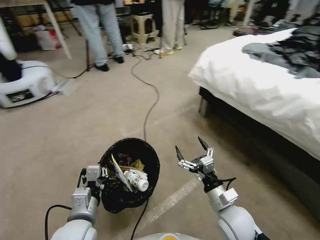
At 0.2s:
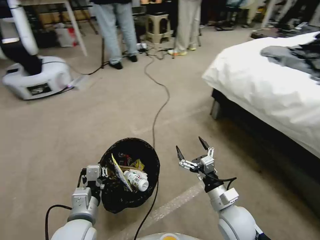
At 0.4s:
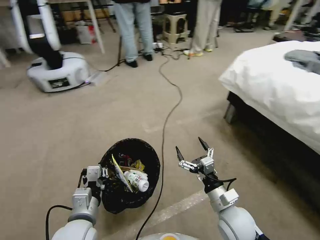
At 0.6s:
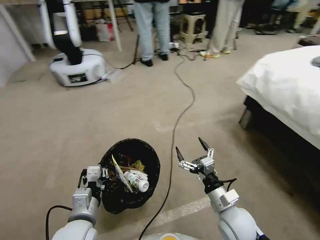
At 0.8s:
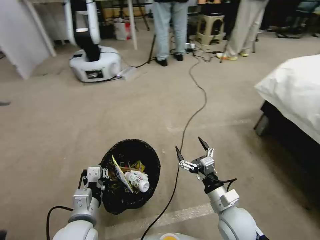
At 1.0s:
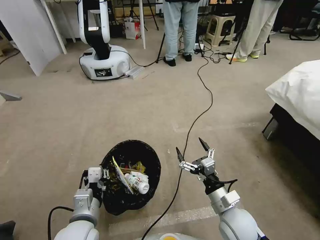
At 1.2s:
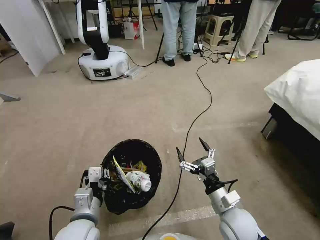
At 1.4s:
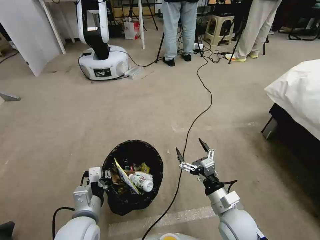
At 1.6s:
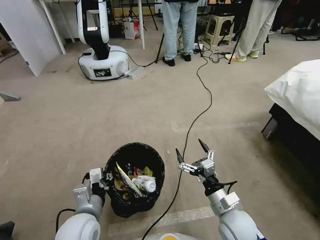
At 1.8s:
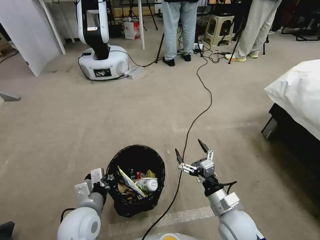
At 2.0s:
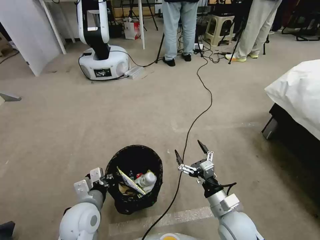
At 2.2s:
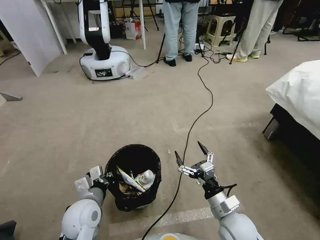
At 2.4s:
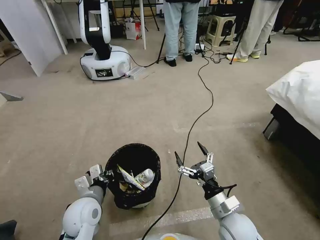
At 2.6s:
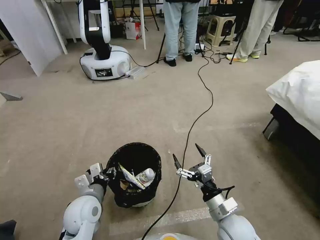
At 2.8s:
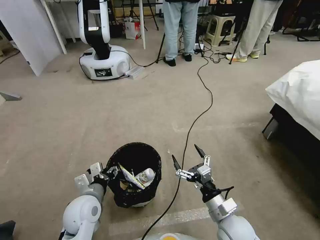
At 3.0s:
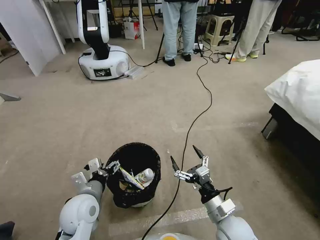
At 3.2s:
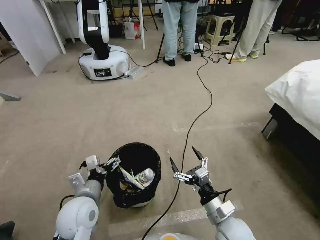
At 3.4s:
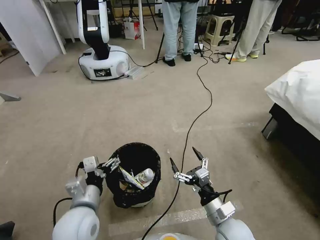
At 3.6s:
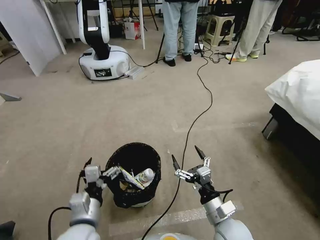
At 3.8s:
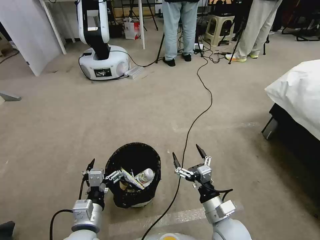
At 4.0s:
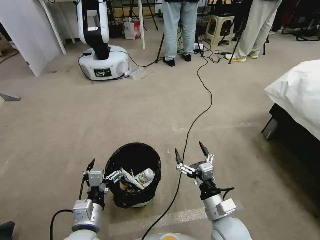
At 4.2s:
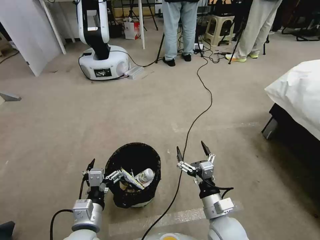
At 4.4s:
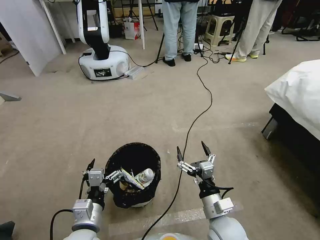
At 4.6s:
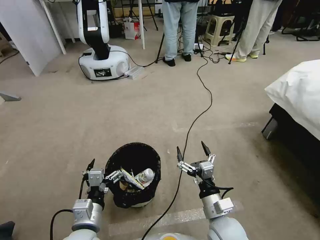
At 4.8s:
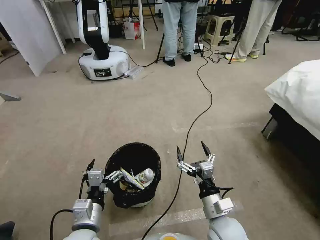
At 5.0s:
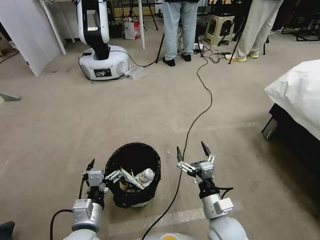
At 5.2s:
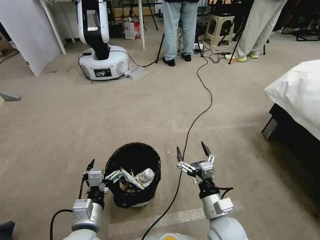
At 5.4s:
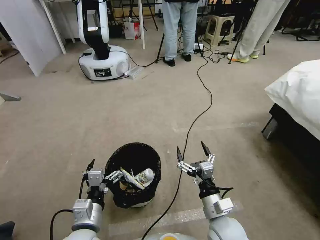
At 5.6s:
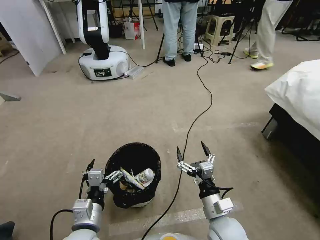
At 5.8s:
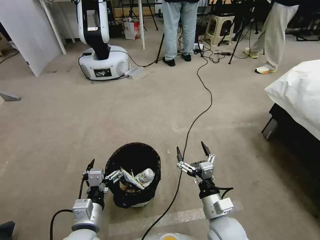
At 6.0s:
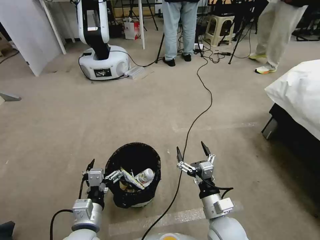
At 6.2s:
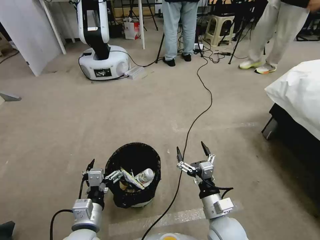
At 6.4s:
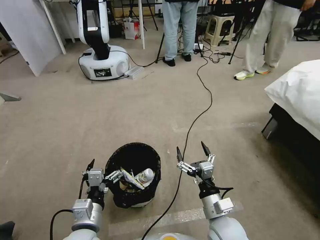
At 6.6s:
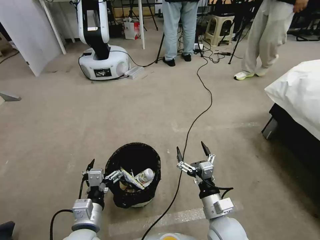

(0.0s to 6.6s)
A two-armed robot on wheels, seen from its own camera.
Task of the whole recording: Pick up the trash bin, then pick up the garbage from the floor and place it into the trash bin.
1.6s - 3.2s: The left gripper opens.
3.2s - 5.0s: The left gripper travels backward by about 5 cm.
5.0s - 6.6s: Both grippers stay about where they are.

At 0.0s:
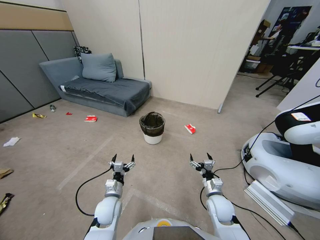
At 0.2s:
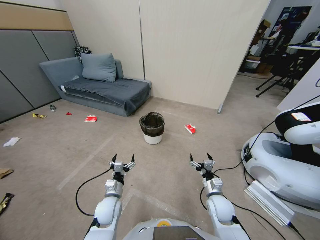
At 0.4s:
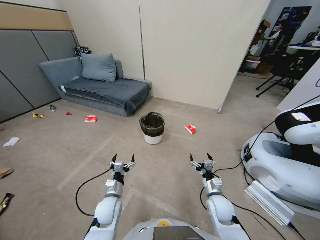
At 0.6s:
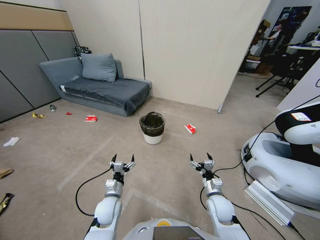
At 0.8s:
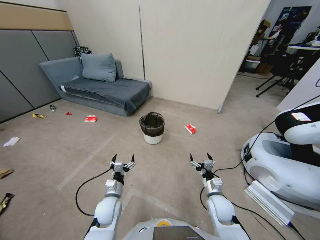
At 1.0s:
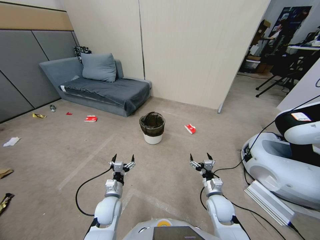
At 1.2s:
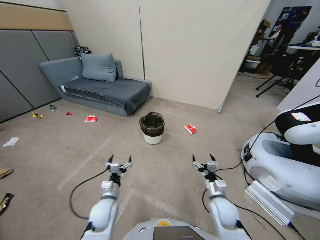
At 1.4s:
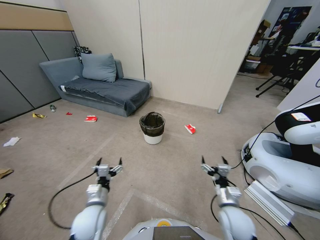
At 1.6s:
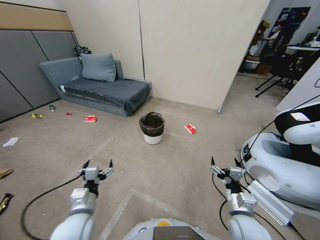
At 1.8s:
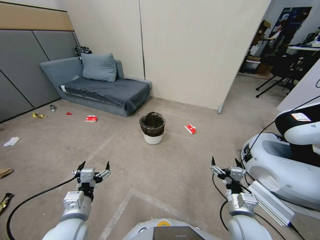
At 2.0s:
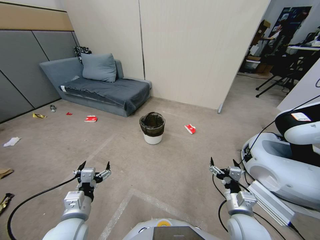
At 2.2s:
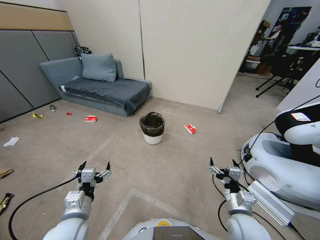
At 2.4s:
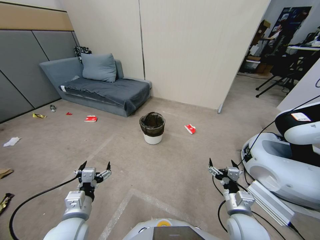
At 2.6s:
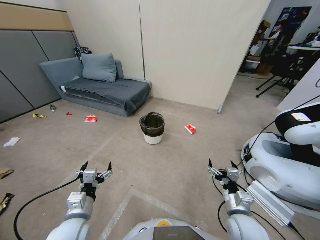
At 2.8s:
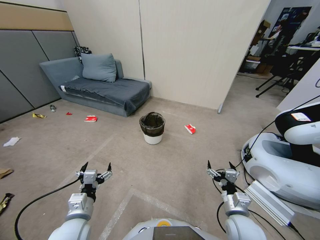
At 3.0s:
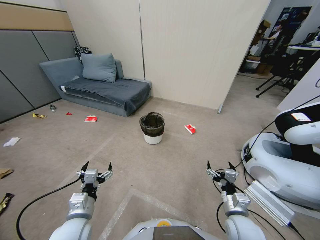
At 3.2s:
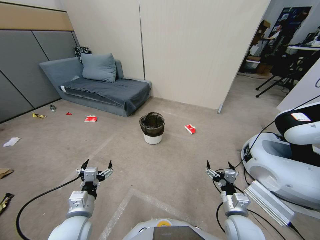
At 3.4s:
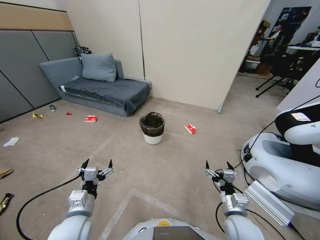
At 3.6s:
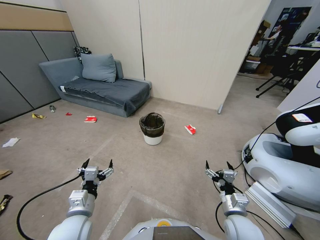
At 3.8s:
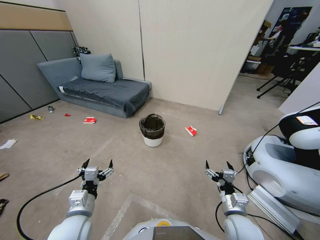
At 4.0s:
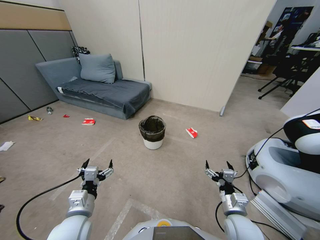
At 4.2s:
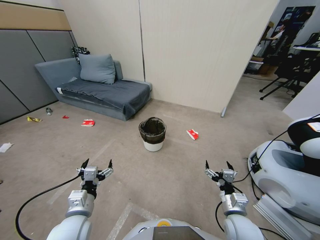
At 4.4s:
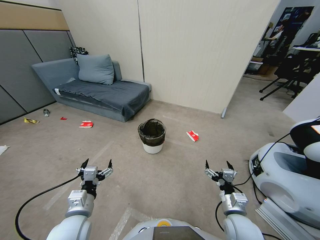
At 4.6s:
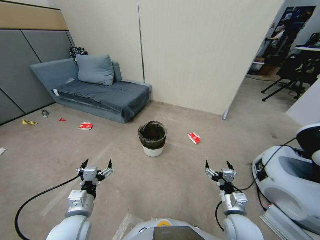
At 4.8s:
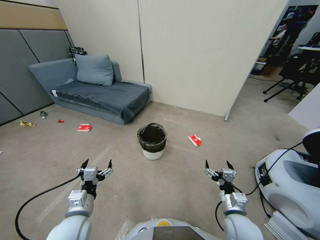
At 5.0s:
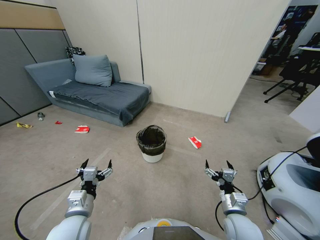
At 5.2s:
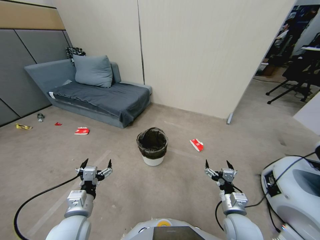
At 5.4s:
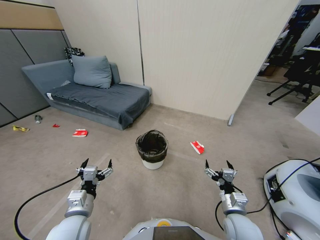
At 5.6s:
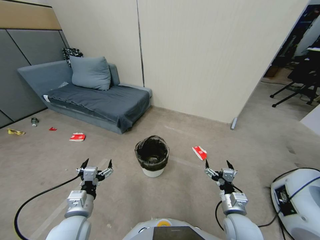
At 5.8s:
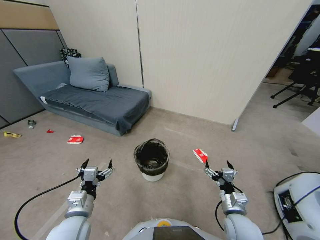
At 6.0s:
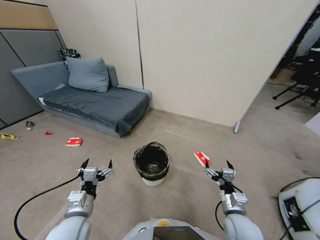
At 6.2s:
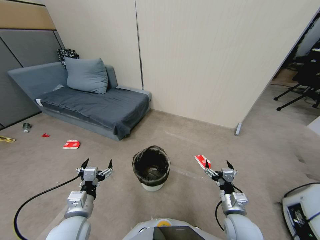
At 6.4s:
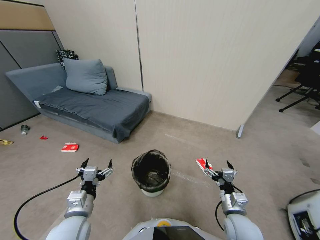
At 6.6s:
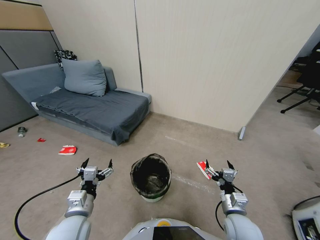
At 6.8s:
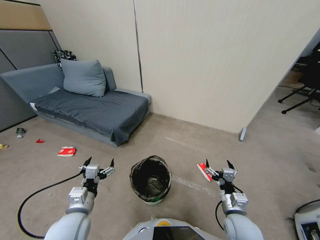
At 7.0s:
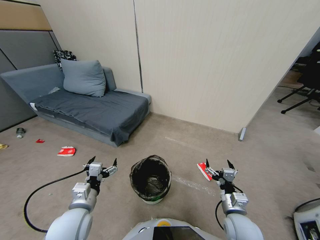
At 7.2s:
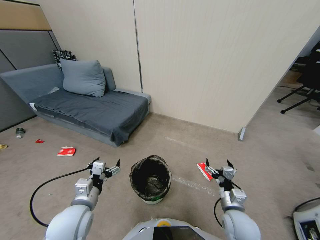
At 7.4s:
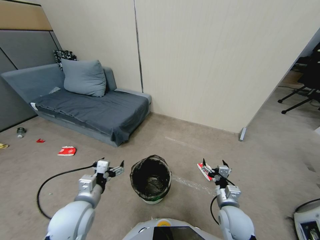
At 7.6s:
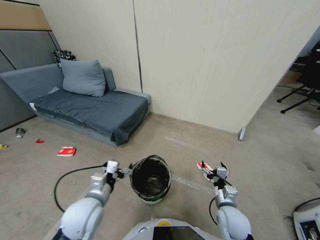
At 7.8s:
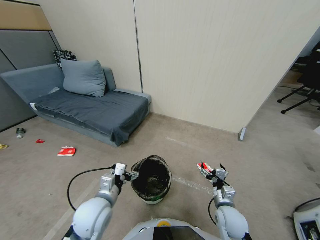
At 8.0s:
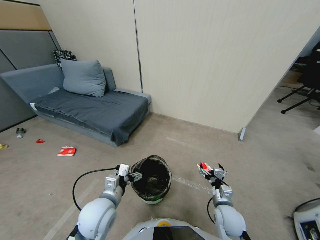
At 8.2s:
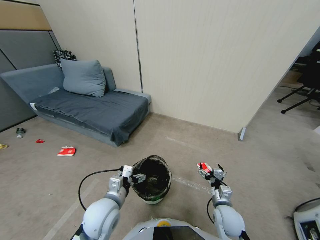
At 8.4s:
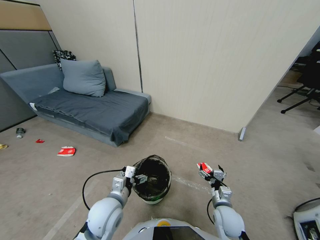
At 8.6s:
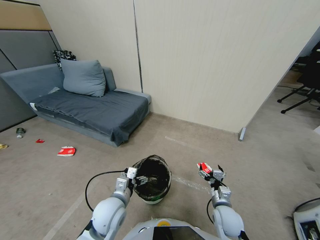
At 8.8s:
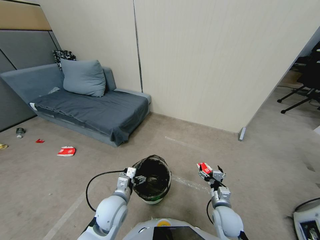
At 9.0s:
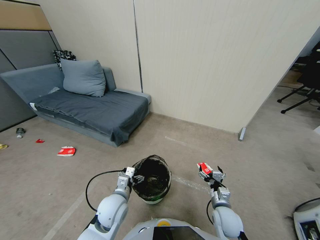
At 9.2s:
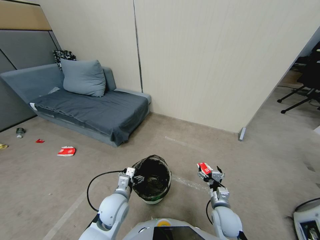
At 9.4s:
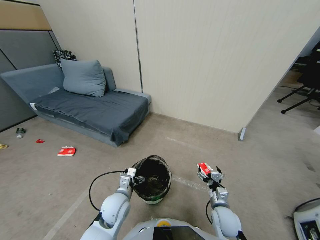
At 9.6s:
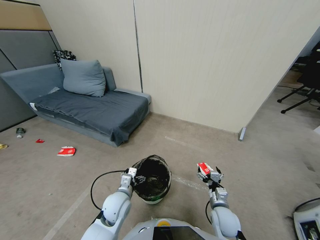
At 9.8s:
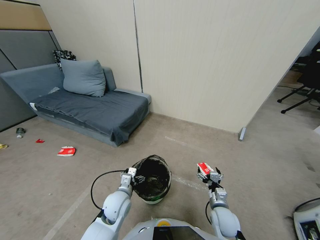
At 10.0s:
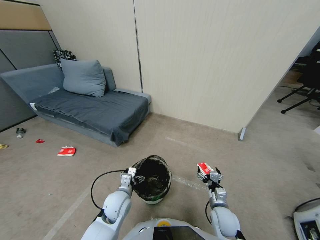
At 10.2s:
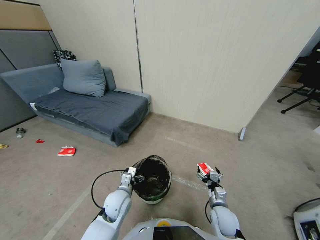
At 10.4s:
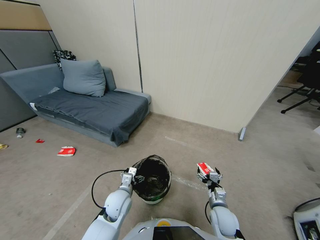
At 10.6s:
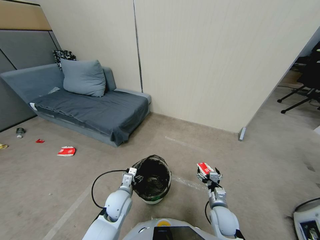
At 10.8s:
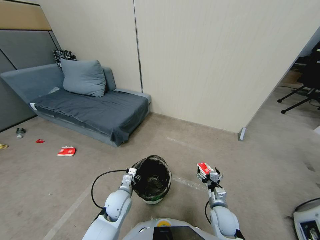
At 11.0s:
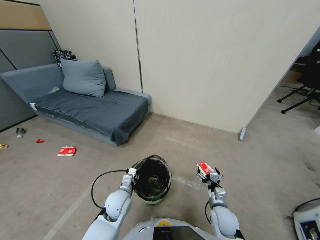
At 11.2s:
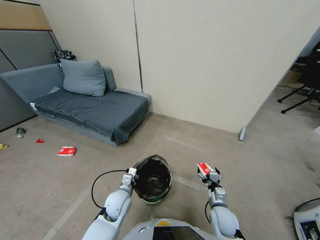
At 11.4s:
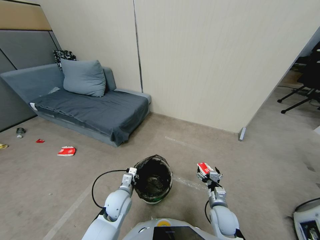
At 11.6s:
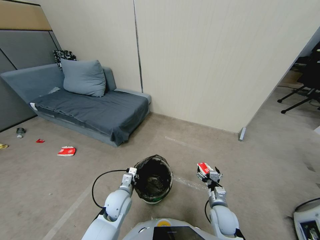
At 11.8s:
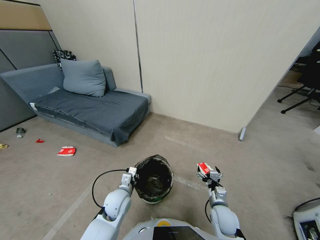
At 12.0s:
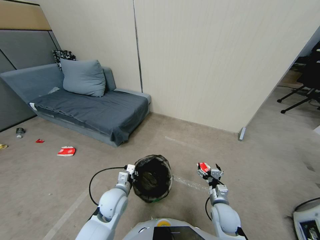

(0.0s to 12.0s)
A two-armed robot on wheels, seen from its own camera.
Task of the whole recording: Pick up the trash bin, then pick up the garbage from the floor and place it into the trash bin.
1.6s - 3.0s: There are only small adjustments of the grippers.
6.0s - 7.6s: The left gripper changes place by roughly 5 cm.
7.6s - 9.0s: The left gripper heads downward, covering about 5 cm.
9.0s - 10.4s: The grippers move only a little.
10.4s - 12.0s: The left gripper shifts some 5 cm upward, and closes.

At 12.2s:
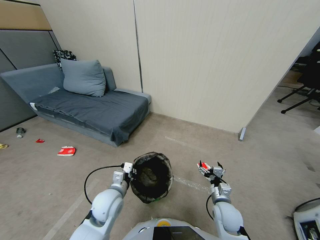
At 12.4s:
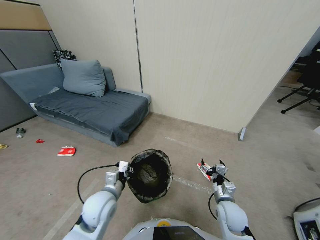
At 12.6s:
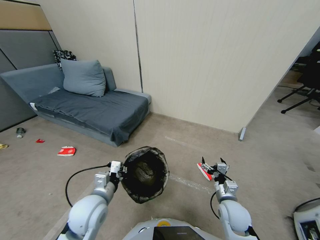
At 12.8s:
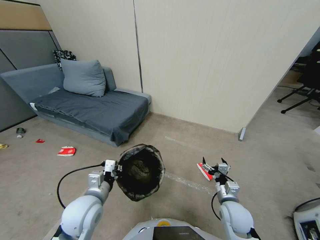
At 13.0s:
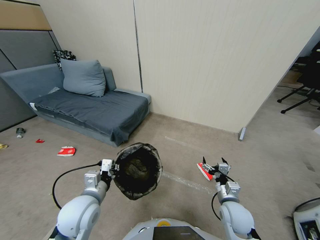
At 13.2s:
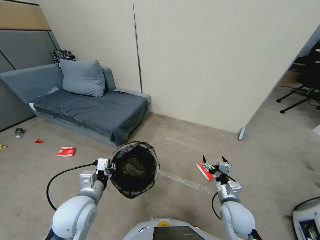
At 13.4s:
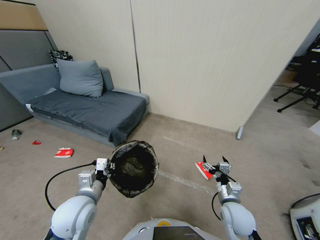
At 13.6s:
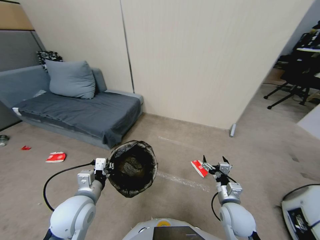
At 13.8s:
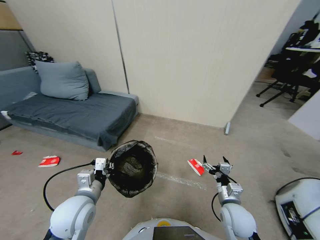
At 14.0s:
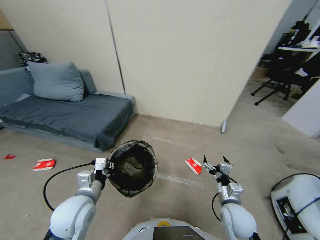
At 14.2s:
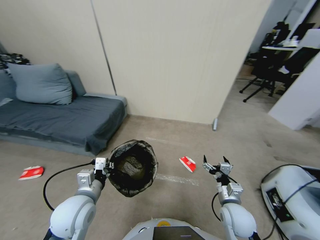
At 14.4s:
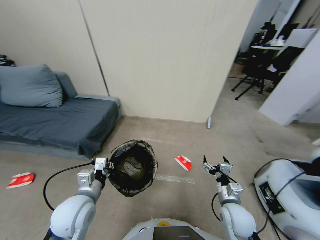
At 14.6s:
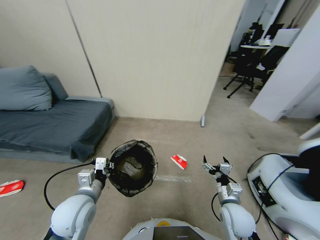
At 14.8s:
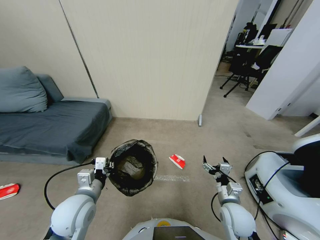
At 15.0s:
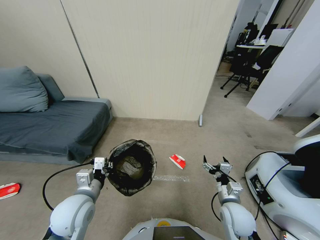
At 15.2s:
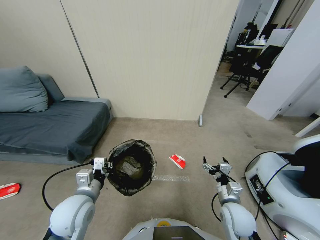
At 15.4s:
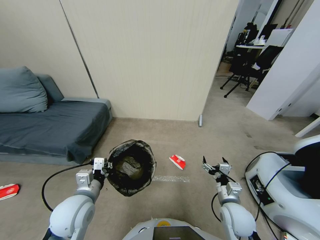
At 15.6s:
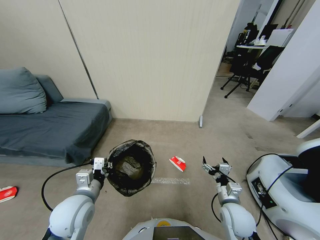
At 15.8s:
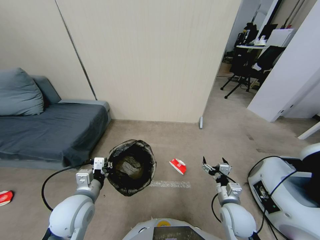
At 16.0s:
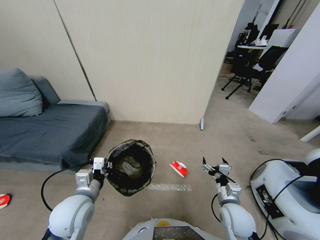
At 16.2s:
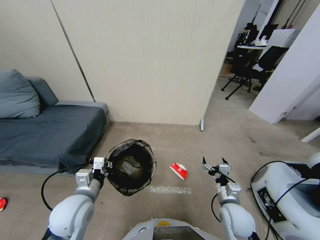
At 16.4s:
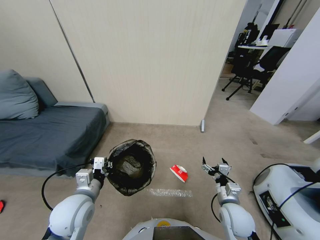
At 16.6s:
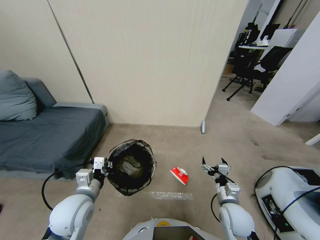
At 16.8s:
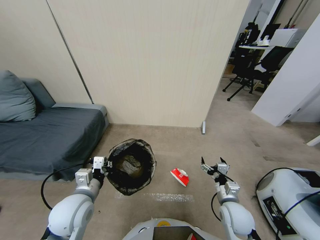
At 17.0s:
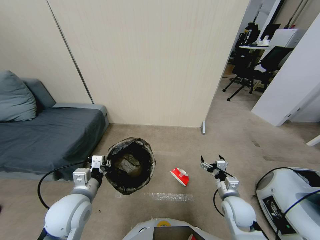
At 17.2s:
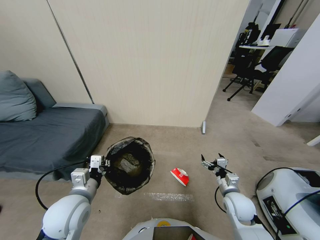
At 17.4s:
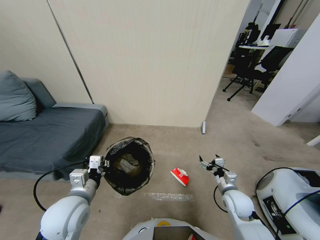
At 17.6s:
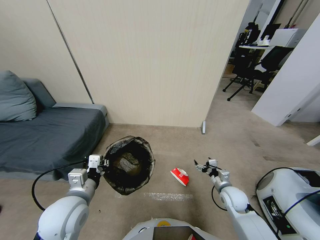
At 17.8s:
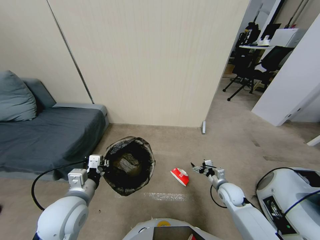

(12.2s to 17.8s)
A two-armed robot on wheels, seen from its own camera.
Task of the whole recording: Pick up the trash bin, then pick up the garbage from the floor and place it into the trash bin.
12.2s - 13.6s: The left gripper moves about 5 cm.
15.0s - 16.4s: The two grippers keep their place.
16.4s - 17.8s: The right gripper moves forward, downward and to the right, some 15 cm.
